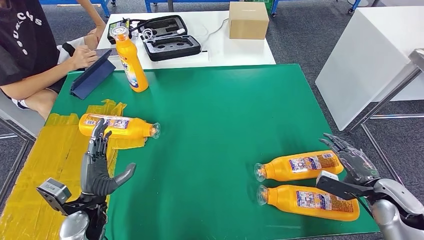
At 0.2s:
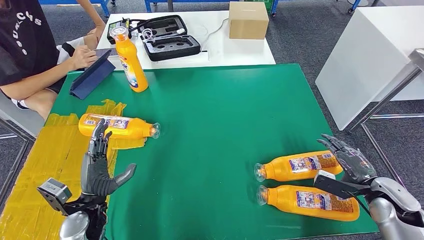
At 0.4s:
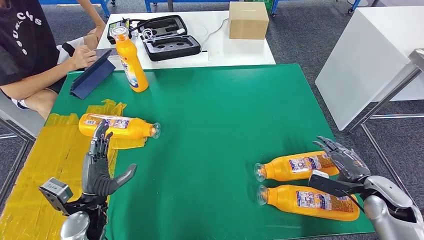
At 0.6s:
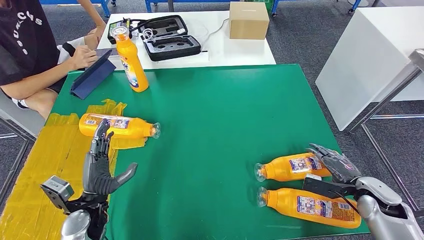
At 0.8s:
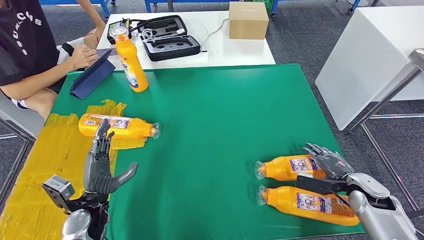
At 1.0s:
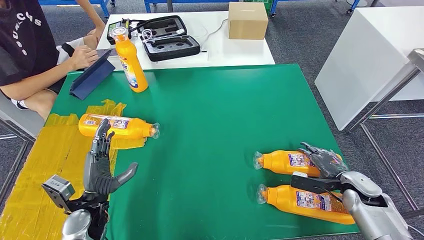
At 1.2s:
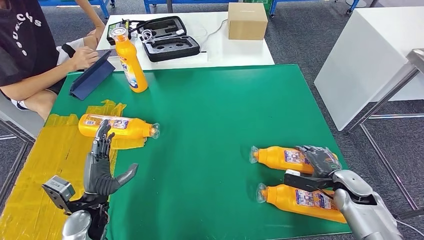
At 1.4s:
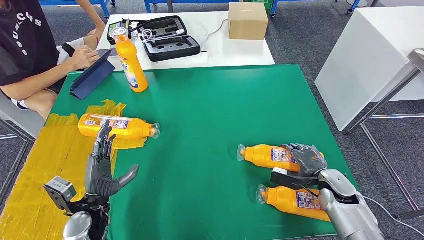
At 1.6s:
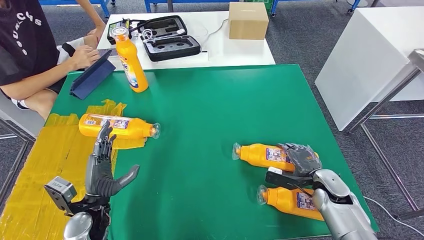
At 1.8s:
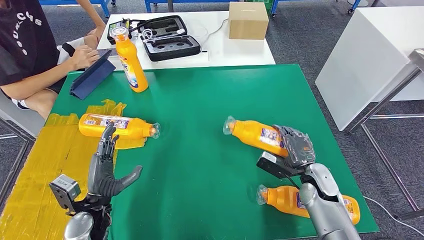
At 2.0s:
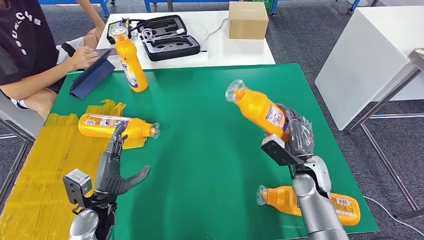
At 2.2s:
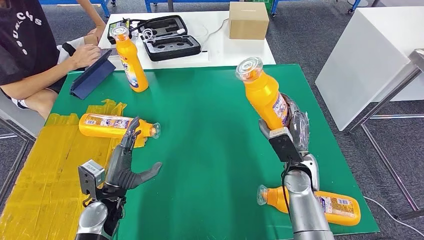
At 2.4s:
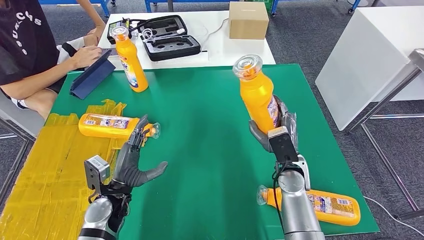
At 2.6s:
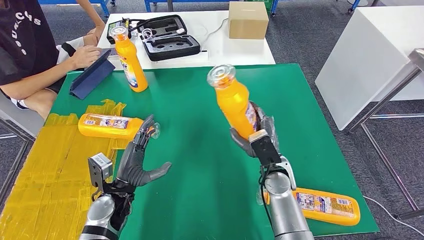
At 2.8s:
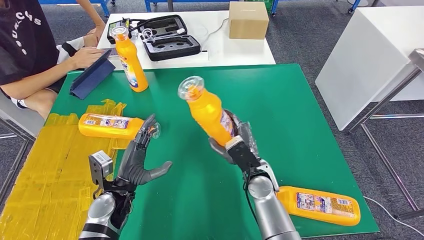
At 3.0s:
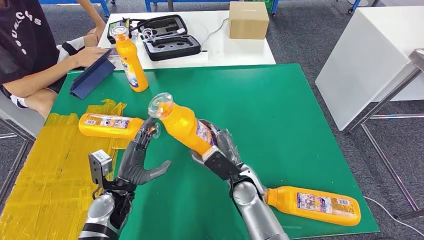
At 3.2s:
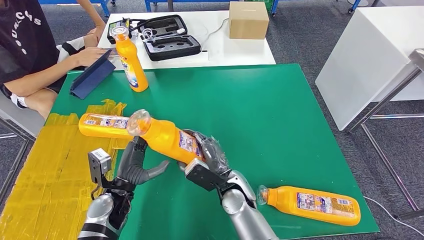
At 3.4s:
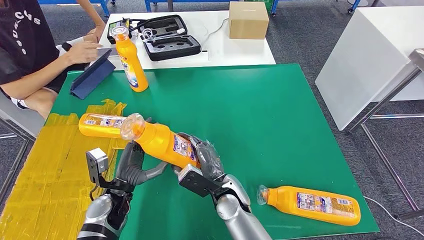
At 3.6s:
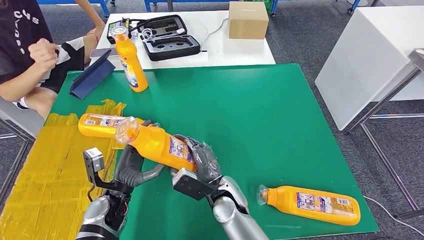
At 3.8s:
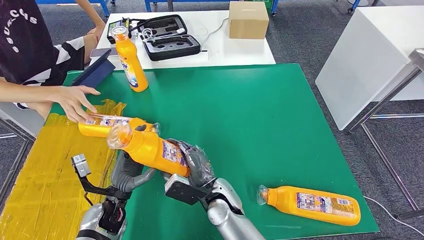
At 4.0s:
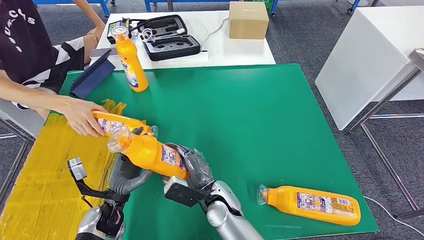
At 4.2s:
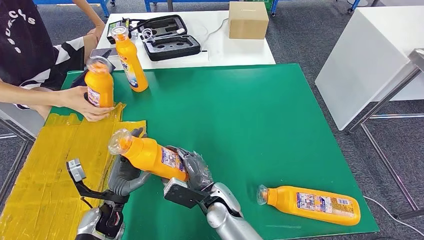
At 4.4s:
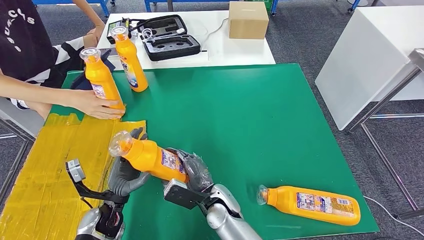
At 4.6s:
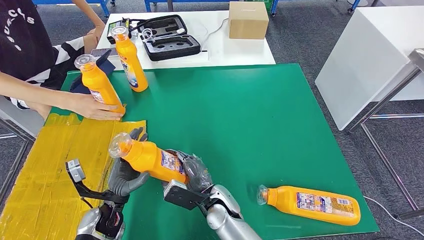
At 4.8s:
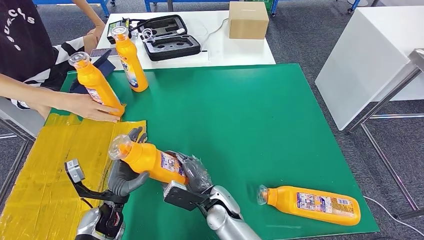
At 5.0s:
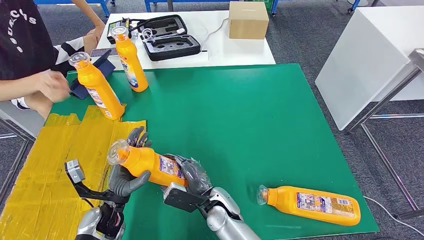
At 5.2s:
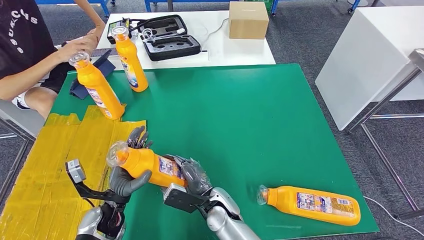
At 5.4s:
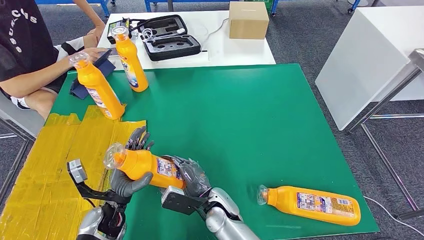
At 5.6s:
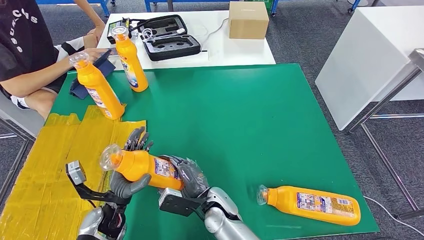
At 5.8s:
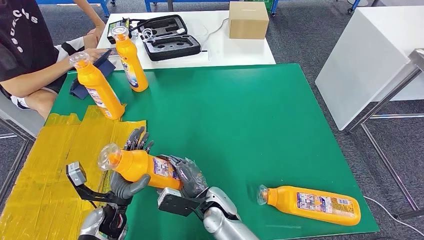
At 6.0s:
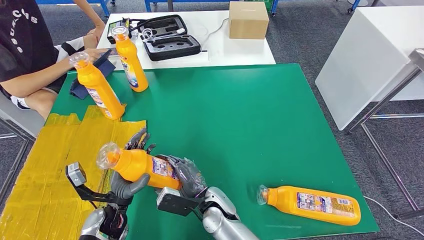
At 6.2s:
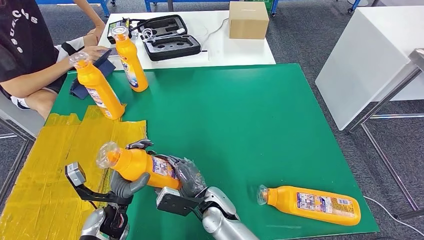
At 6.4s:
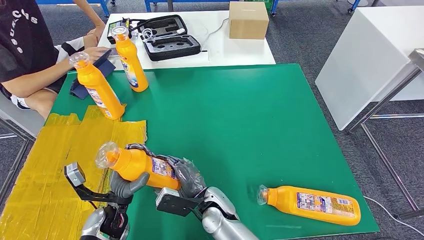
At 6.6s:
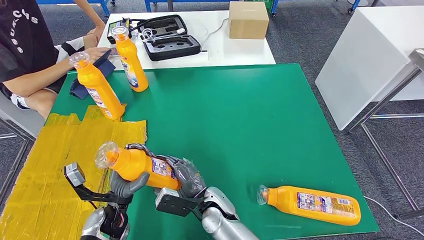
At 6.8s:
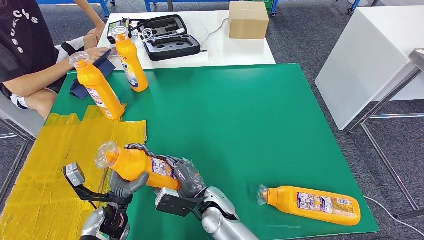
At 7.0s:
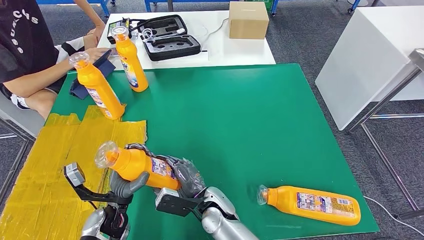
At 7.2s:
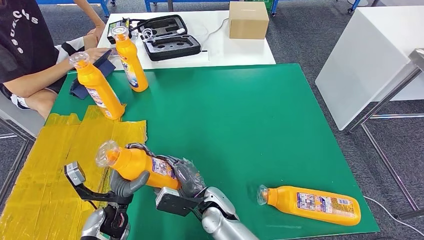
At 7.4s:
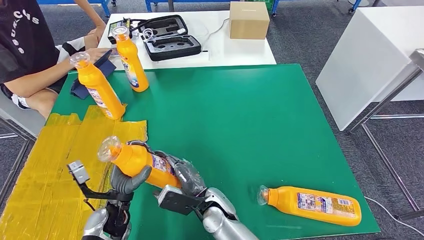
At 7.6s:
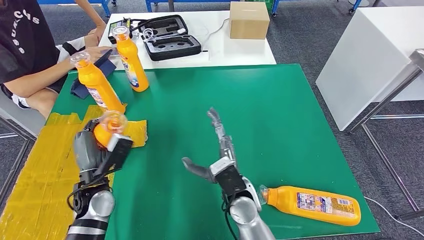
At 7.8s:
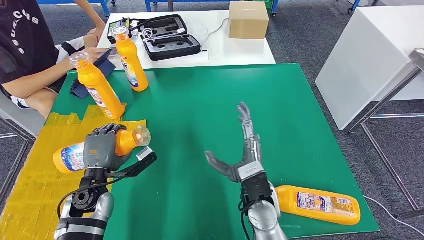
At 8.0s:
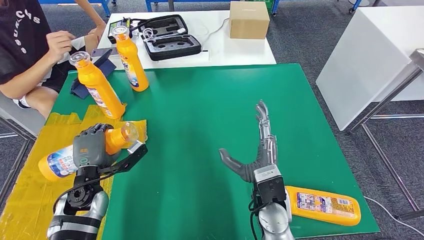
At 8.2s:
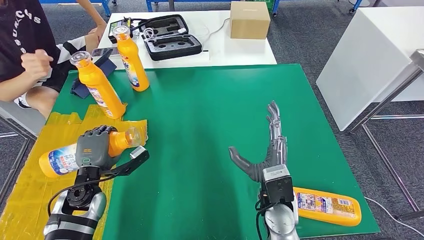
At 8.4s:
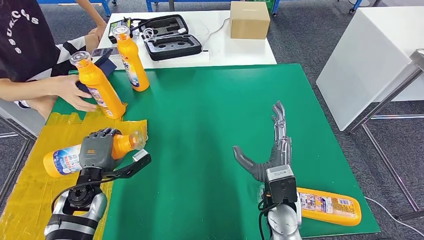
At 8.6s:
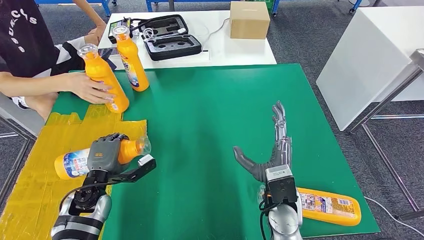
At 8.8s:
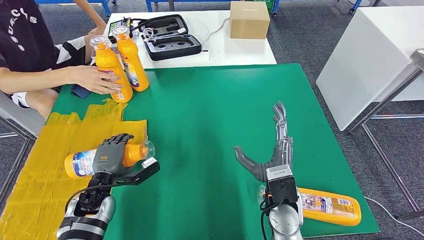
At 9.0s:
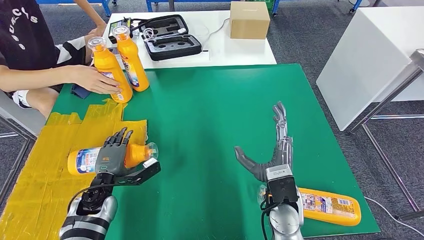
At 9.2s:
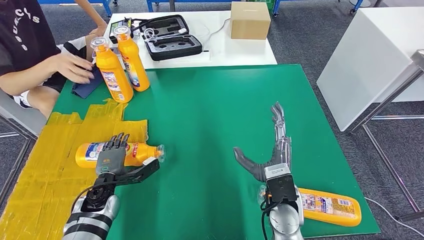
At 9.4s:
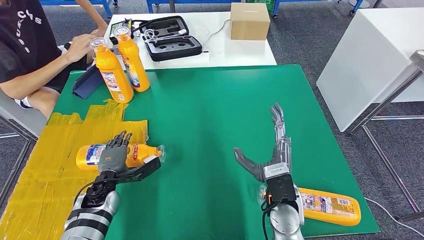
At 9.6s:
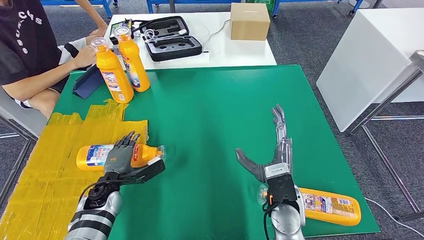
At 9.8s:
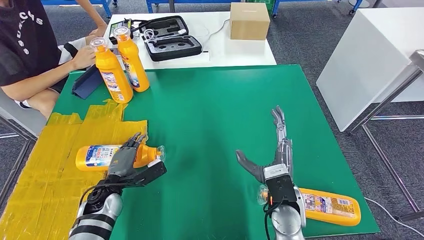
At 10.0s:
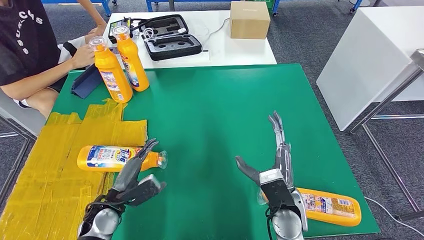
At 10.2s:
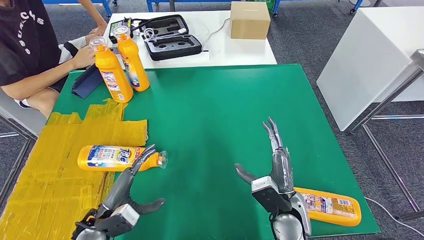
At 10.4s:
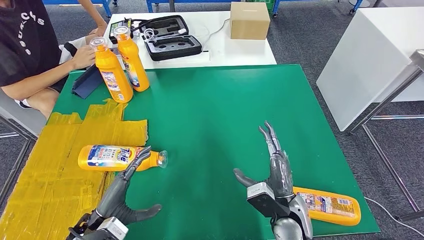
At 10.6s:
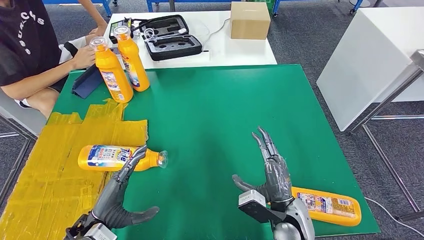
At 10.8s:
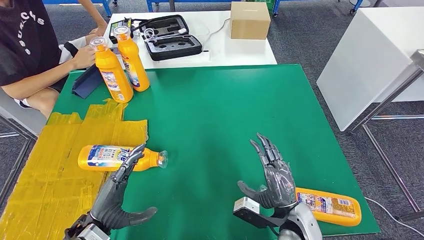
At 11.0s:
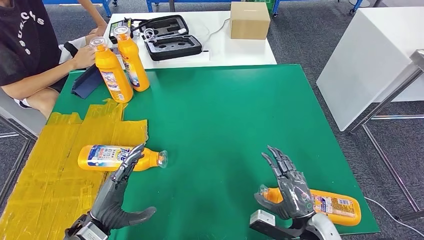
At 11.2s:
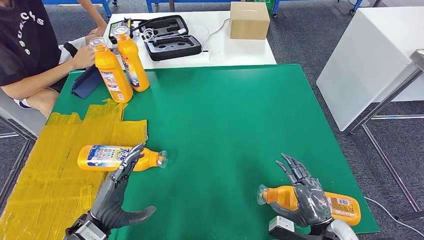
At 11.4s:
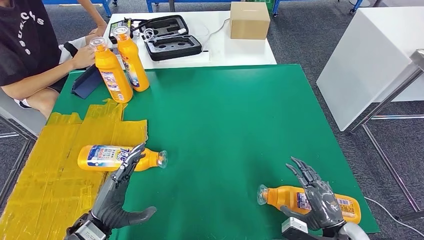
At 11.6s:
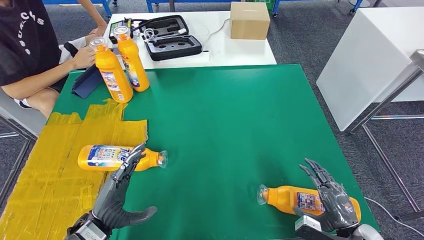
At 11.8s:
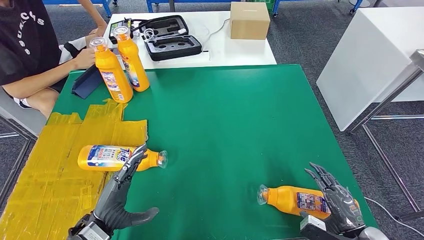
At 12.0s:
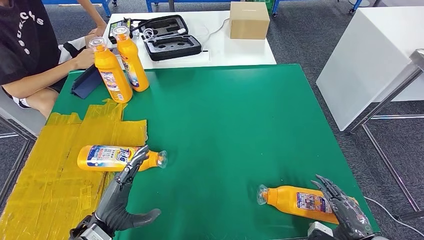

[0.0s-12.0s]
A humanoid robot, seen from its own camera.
Step, 1.0s to 4.0s: Pick up the fast-moving consumer goods bottle from the table.
Step, 4.2s to 10.6s: Flip the fast-moving consumer goods bottle to the front side.
0.0s to 1.6s: The right hand travels to the left, downward and forward by some 15 cm.
1.6s to 3.0s: The left hand goes roughly 5 cm to the right, while the right hand shifts approximately 25 cm to the left.
4.4s to 6.0s: The hands make only small movements.
6.0s to 7.6s: The left hand shifts some 5 cm upward, while the right hand is displaced upward and to the right by about 10 cm.
7.6s to 9.0s: The right hand heads to the right, covering approximately 10 cm.
9.0s to 10.4s: The left hand is displaced backward by about 10 cm.
10.4s to 12.0s: The right hand heads to the right and backward, covering some 20 cm.

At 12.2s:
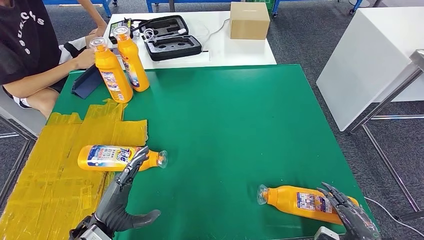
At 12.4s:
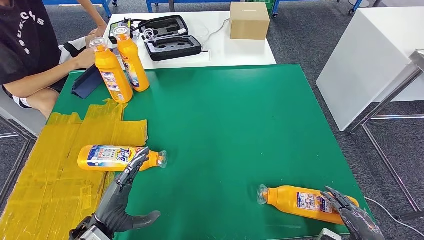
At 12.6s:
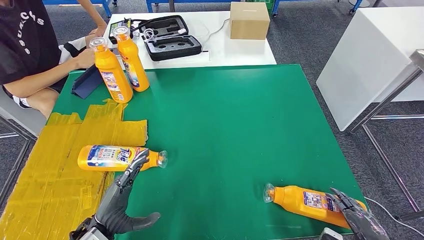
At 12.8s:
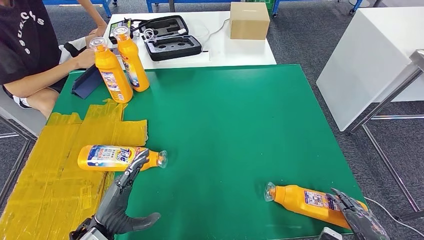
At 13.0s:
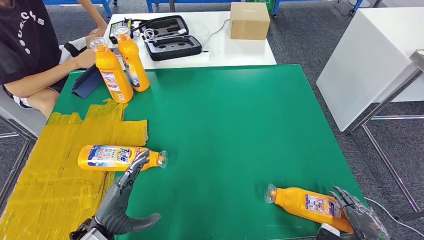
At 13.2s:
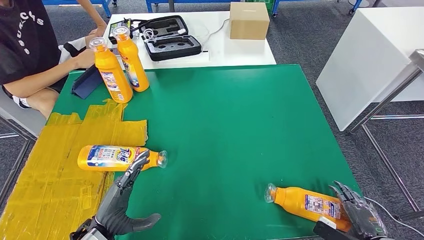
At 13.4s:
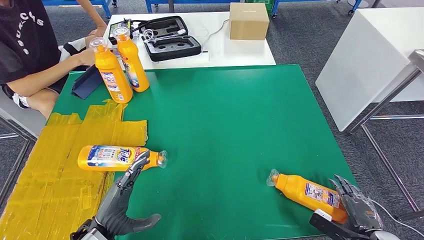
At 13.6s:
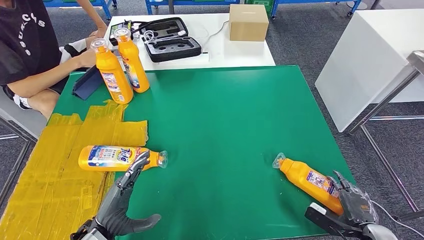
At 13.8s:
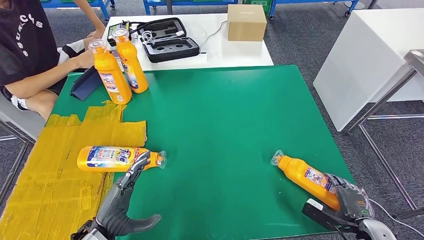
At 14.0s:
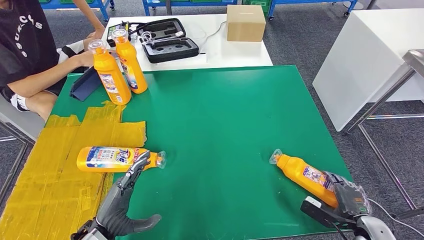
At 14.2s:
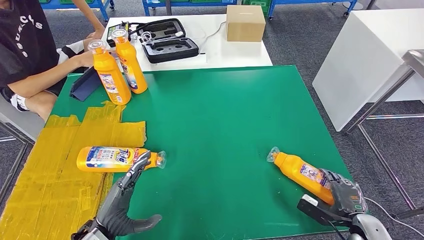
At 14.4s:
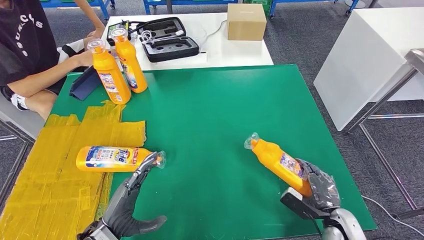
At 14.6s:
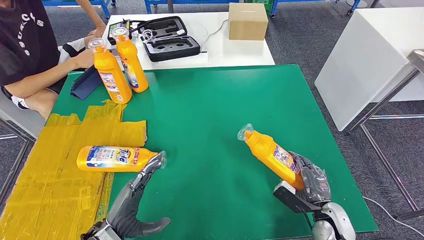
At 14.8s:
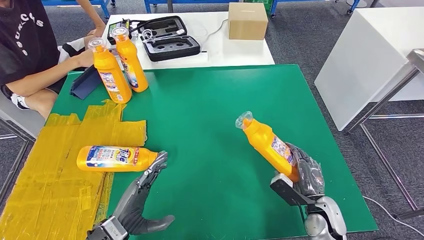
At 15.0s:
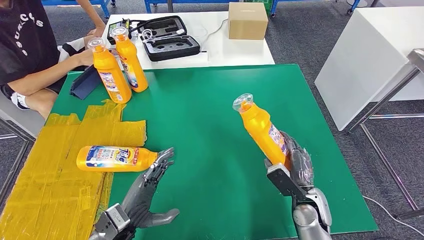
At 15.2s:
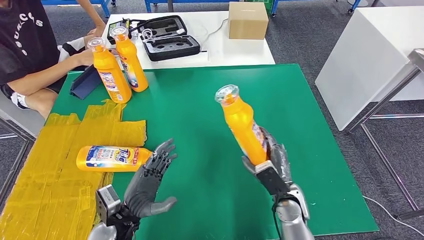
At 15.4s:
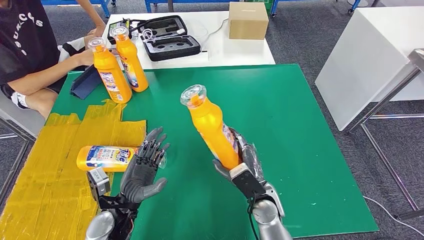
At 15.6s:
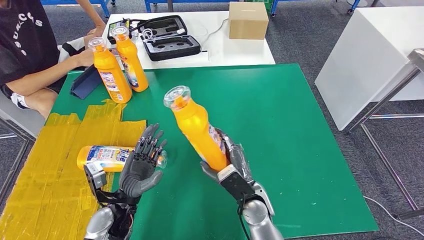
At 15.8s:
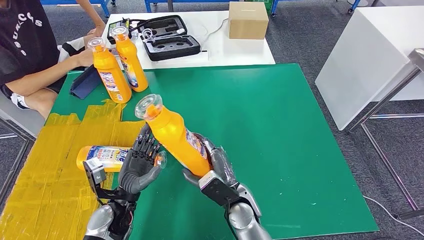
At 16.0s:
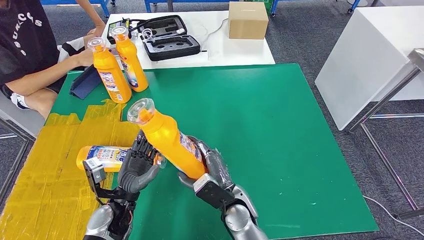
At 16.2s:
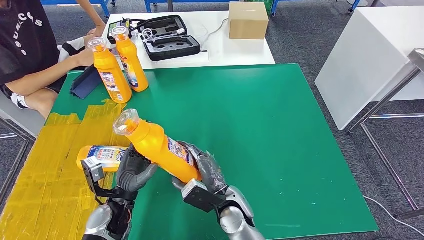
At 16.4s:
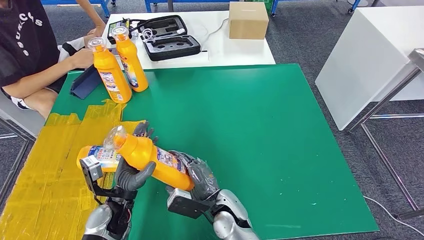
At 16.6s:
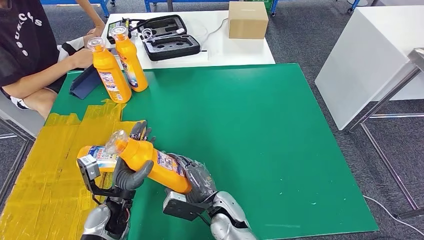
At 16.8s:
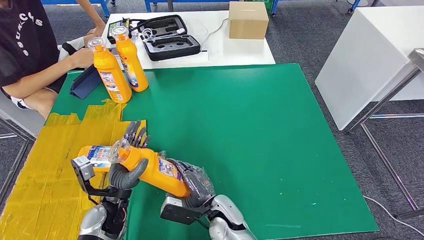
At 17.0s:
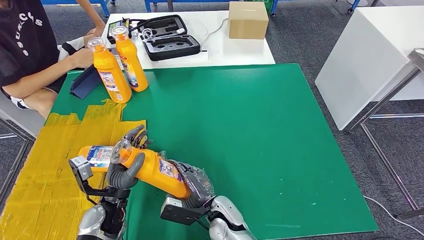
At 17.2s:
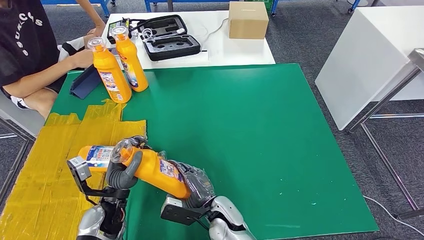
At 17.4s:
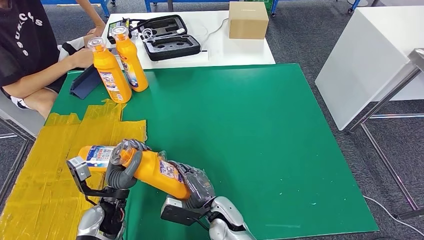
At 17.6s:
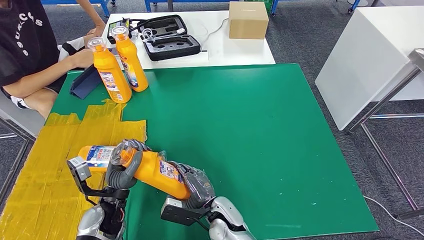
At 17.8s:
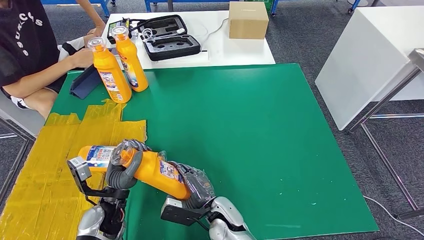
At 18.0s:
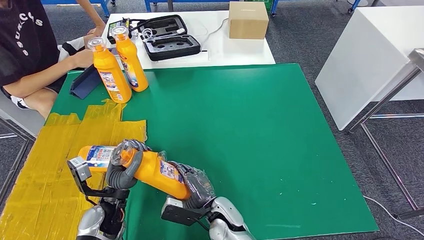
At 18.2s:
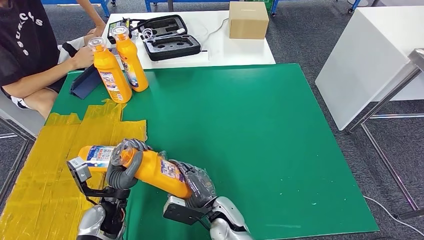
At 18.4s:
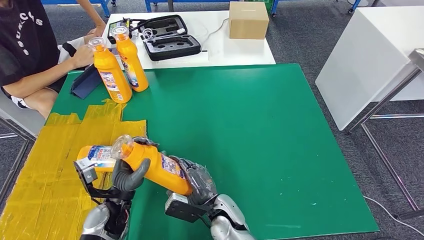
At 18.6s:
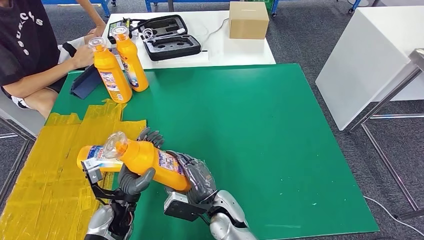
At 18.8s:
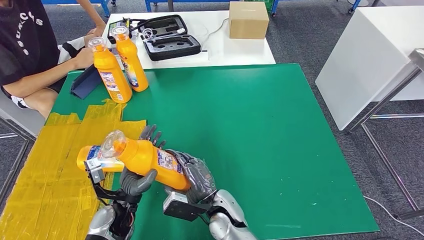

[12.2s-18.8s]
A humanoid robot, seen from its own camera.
Step, 12.6s to 17.0s: Pick up the fast-moving consumer goods bottle from the table.
12.2s to 13.8s: The right hand heads forward, covering approximately 5 cm.
15.4s to 17.2s: The right hand is displaced to the left by about 10 cm.
17.2s to 18.8s: The hands move only a little.
